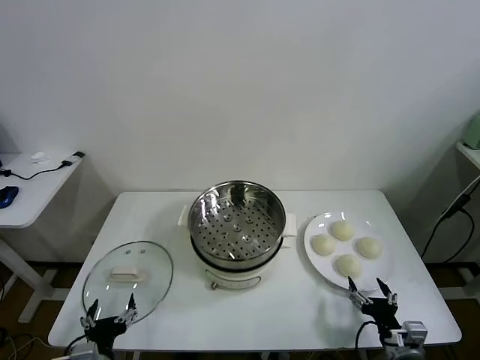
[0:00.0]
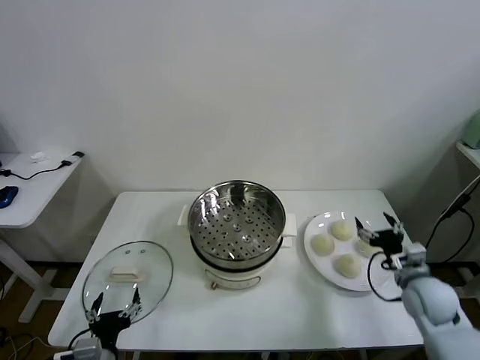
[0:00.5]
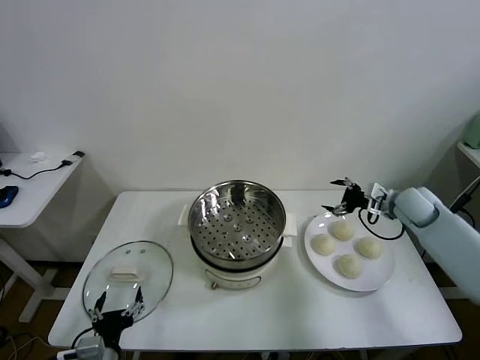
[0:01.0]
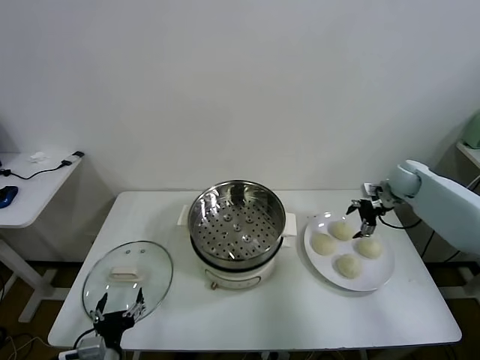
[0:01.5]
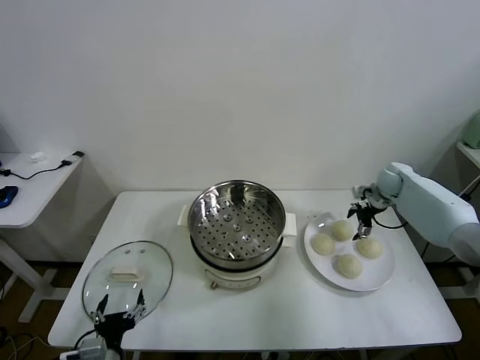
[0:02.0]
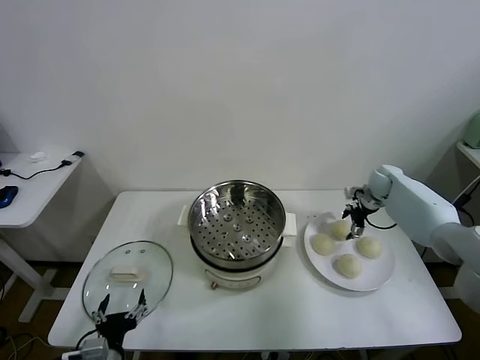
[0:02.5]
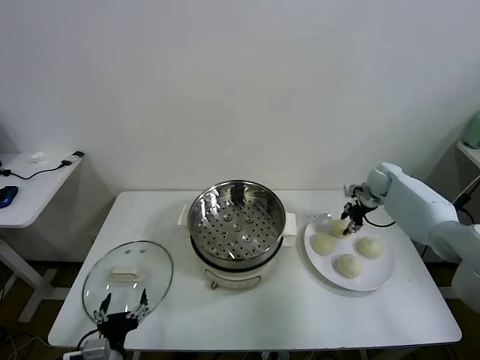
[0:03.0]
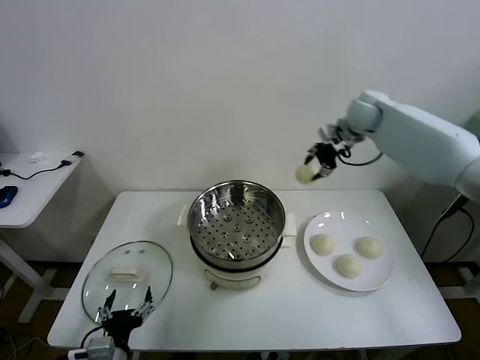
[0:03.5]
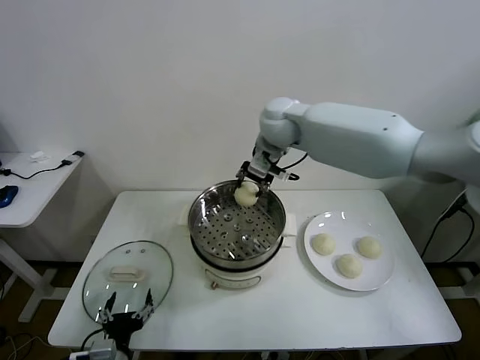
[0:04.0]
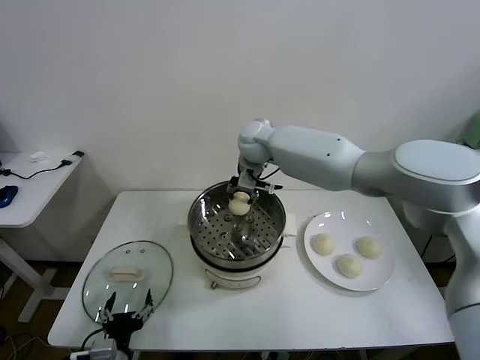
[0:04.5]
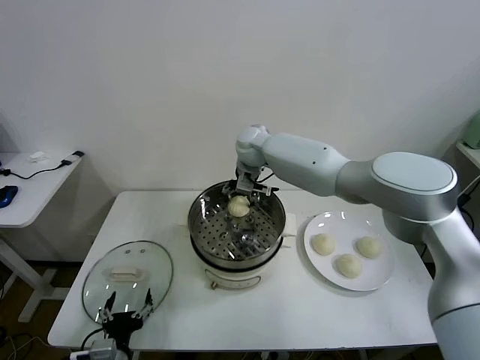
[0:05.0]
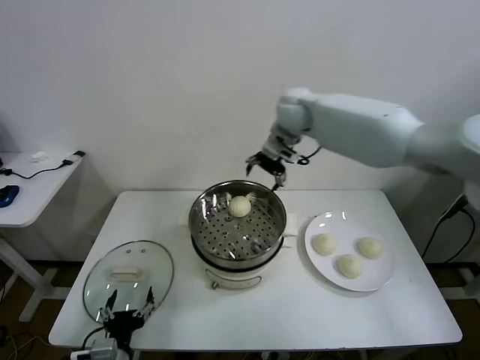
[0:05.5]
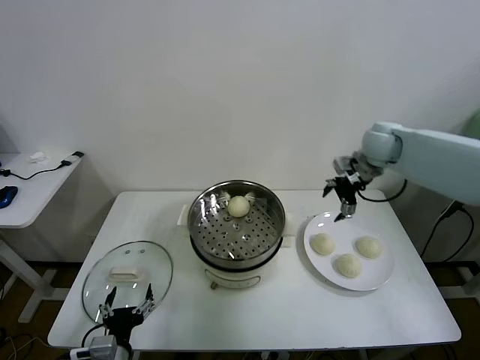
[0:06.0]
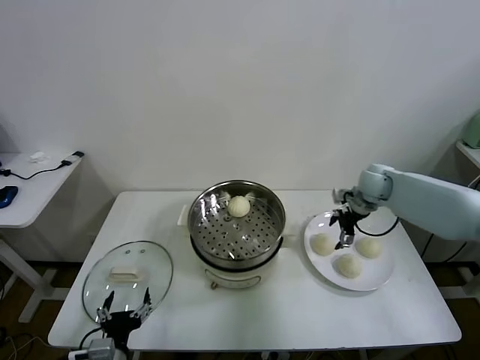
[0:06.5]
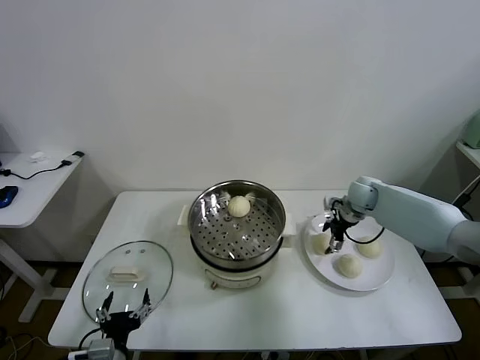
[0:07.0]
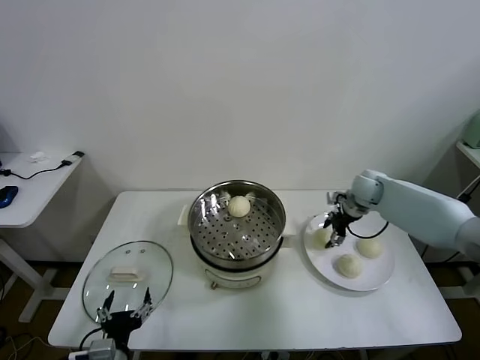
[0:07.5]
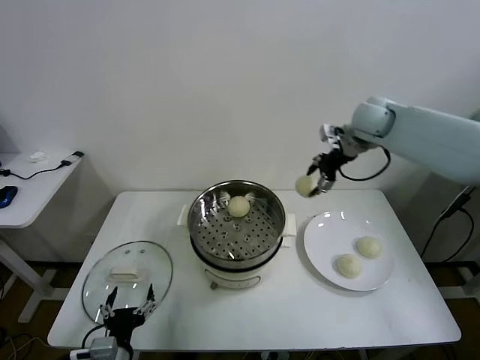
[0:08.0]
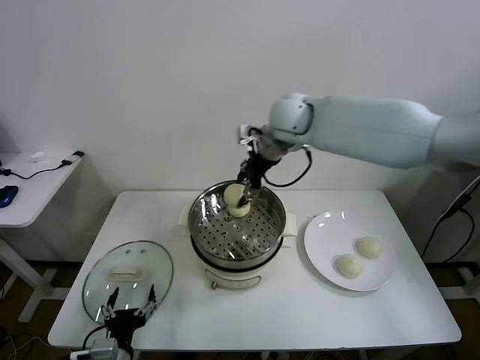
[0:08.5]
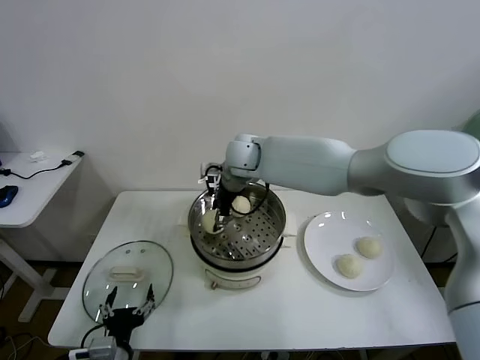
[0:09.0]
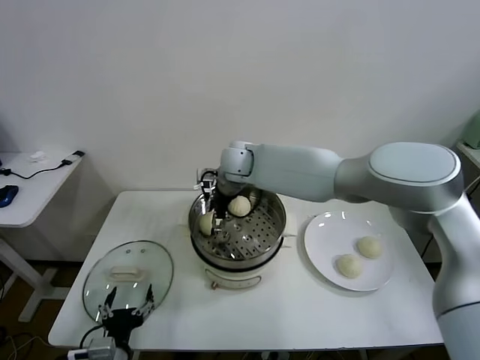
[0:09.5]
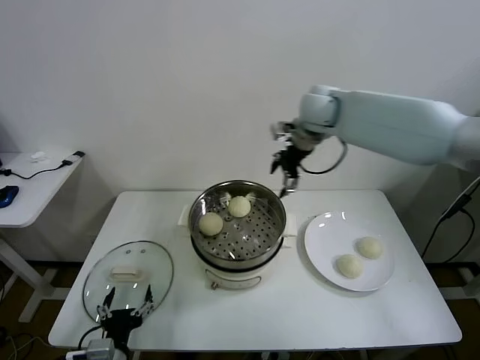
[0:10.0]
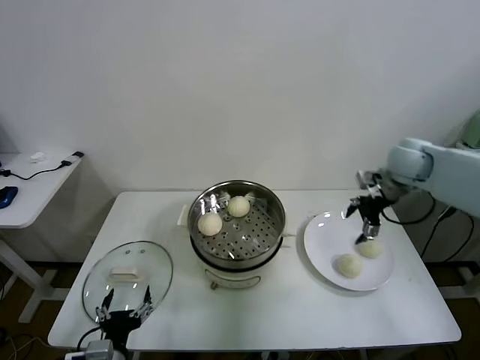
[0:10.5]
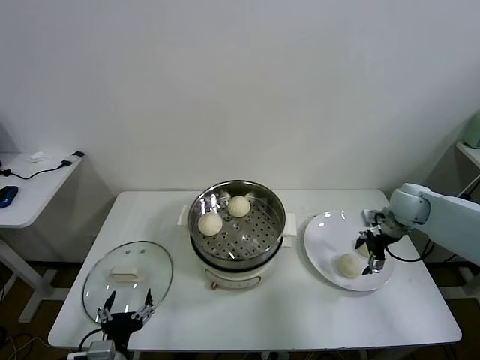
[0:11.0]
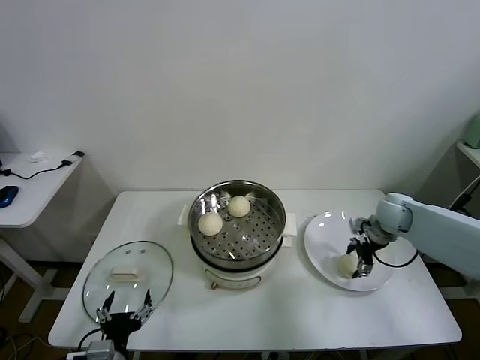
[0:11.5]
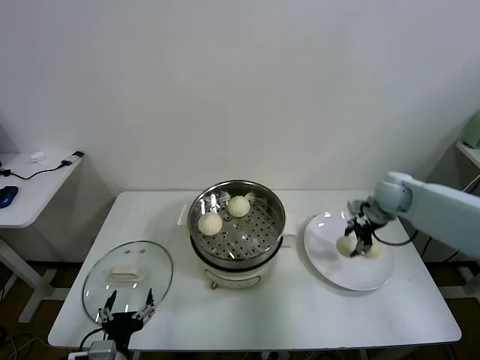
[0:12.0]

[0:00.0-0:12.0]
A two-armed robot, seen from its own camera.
Task of the whole recording: take steamed baozi put them in steamer.
Step, 0:00.0 to 0:02.5: Grasp the baozi in the plate with right gripper.
Step, 0:03.0 to 0:05.0: Place the baozi on the steamer with right gripper.
Step, 0:05.5 to 0:07.0: Grasp the baozi in the plate with right gripper.
Step, 0:07.5 to 0:09.5: Place the baozi on the steamer with right gripper.
Step, 0:10.0 to 0:11.5: Grasp the baozi in the plate with right gripper.
0:02.0 to 0:04.0: The right gripper goes roughly 40 cm to the left and upward, and closes up.
0:04.0 to 0:06.0: The right gripper is displaced to the right by about 25 cm, and opens.
0:06.0 to 0:08.0: The right gripper goes roughly 10 cm upward and to the left, and closes.
0:08.0 to 0:10.0: The right gripper moves roughly 25 cm to the left and comes back, and opens up.
0:10.0 to 0:12.0: The right gripper is displaced downward and to the right by approximately 25 cm, and closes up.

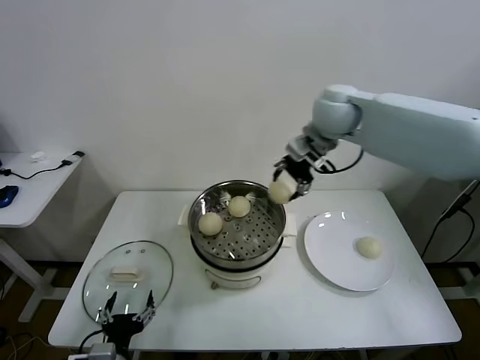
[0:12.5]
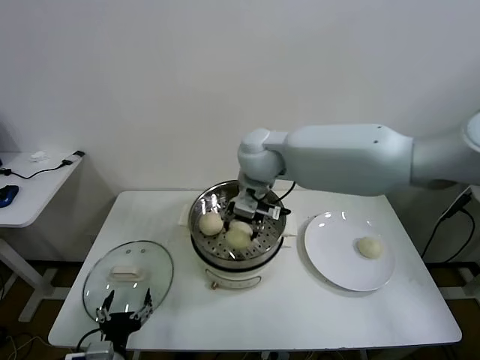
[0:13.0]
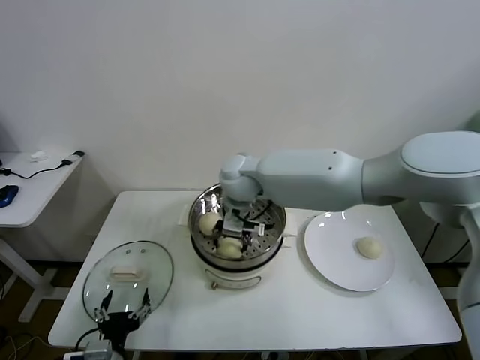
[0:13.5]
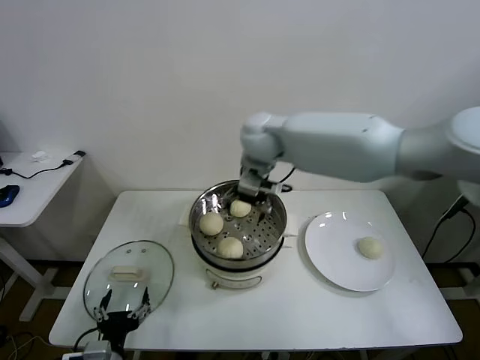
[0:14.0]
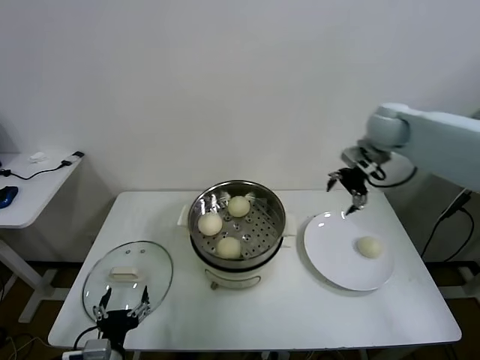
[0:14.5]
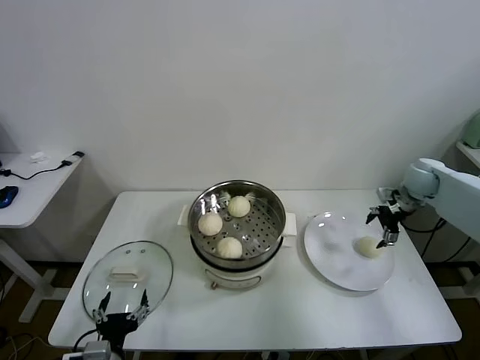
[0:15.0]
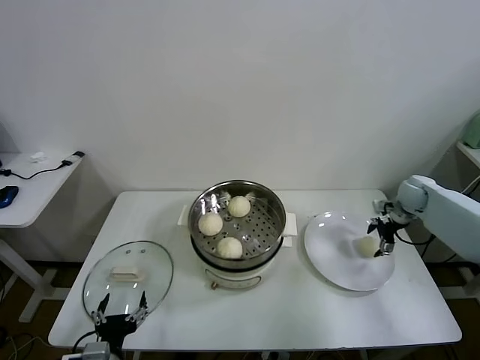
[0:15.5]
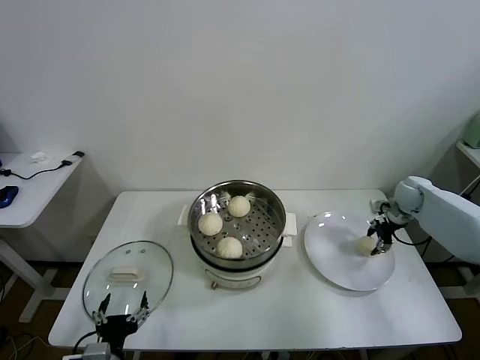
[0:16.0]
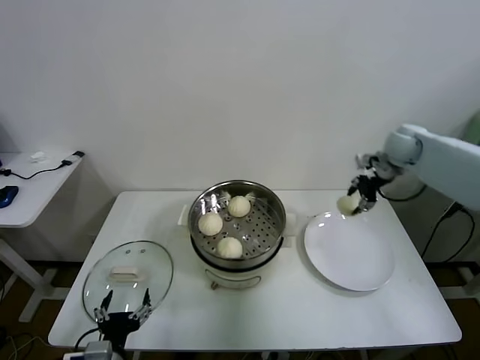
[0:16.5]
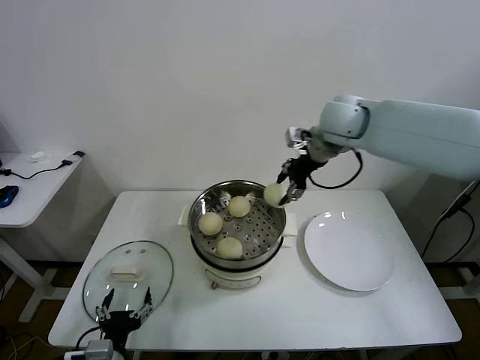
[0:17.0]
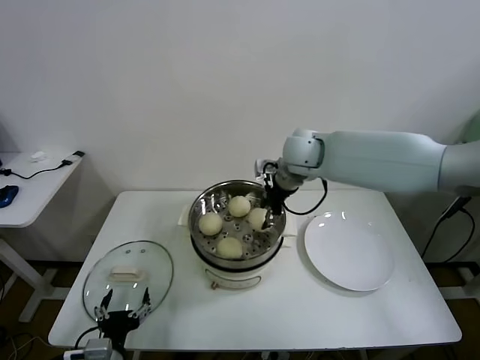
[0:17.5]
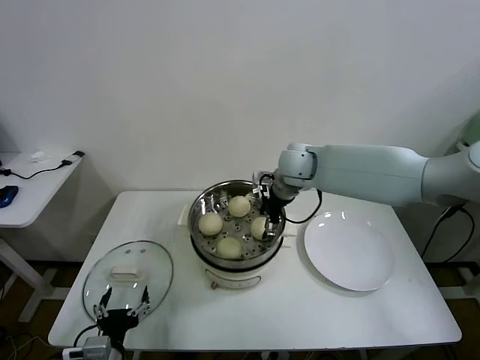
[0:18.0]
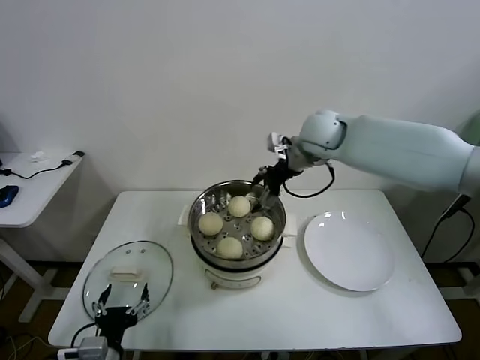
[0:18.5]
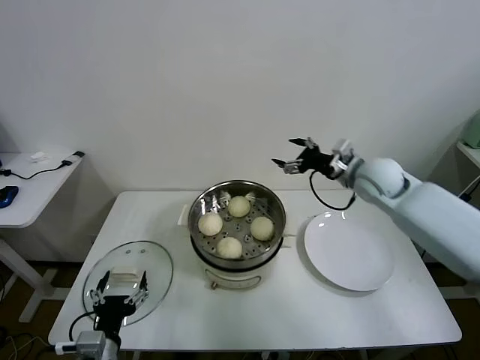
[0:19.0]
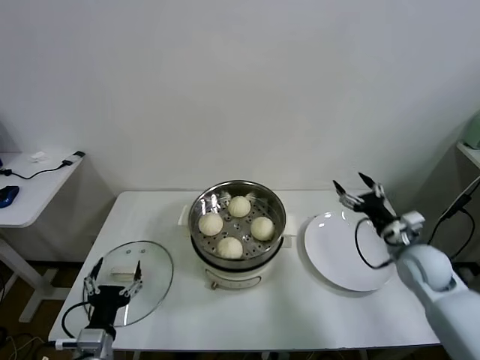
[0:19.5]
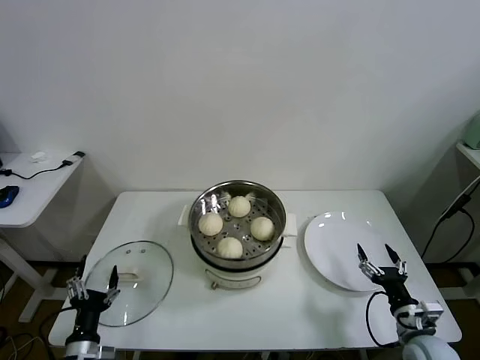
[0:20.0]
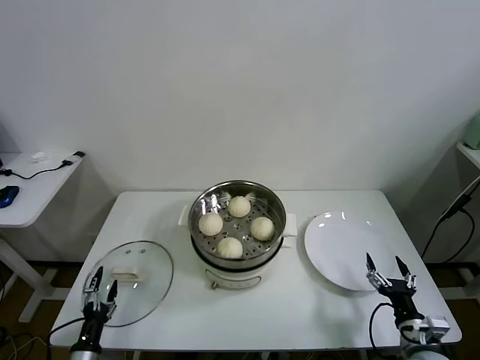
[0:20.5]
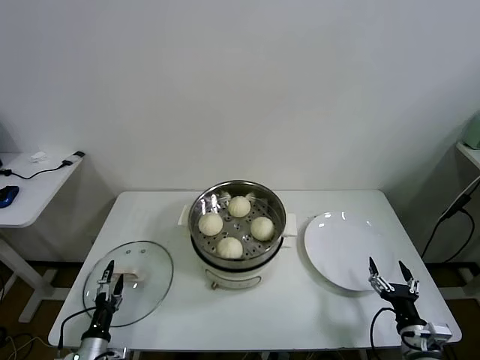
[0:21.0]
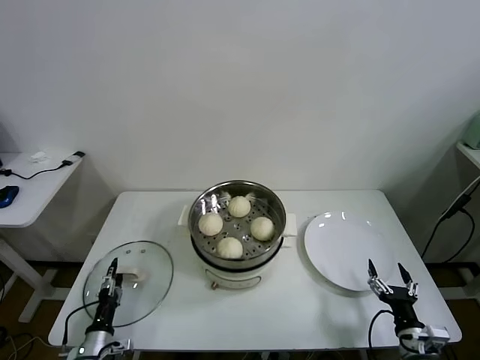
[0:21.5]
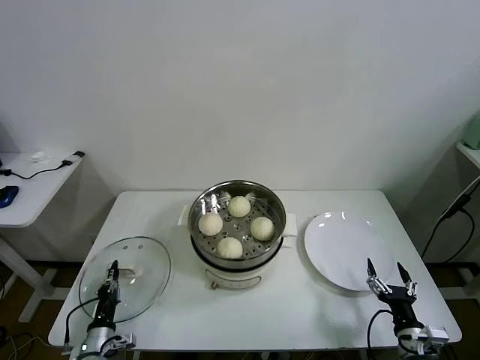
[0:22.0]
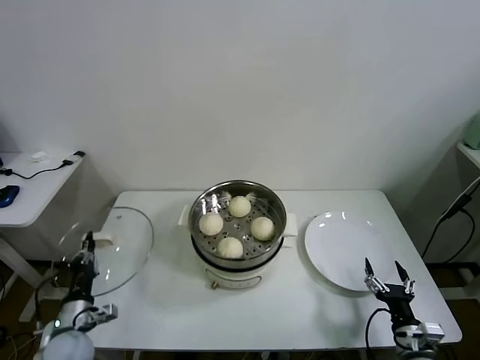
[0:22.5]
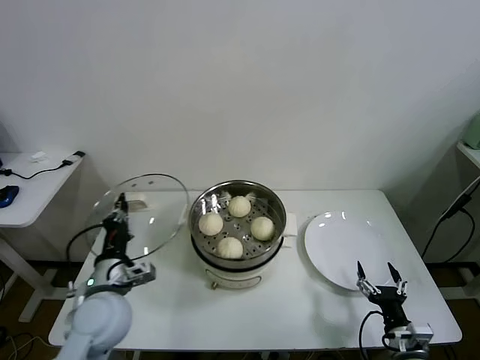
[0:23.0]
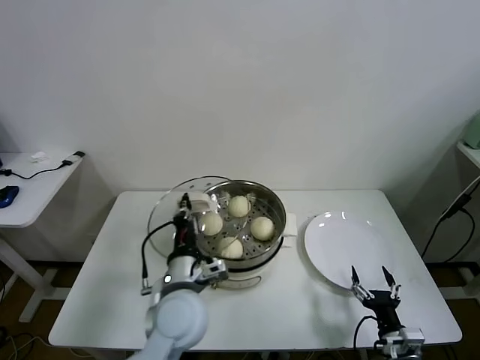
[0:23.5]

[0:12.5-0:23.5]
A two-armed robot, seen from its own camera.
Task of the whole recording: take steamed baozi put them in steamer.
Step, 0:14.0 to 0:15.5: Grasp the baozi in the plate with right gripper.
Step, 0:16.0 to 0:18.0: Place the baozi on the steamer with right gripper.
Step, 0:18.5 to 0:22.0: Grasp the pot lid with left gripper.
0:12.5 to 0:14.5: The right gripper goes roughly 15 cm to the right, and opens its fingers.
0:14.5 to 0:16.0: The right gripper shifts roughly 25 cm downward and to the right, and closes up.
0:16.0 to 0:18.0: The right gripper heads to the left, covering approximately 35 cm, and opens.
0:18.0 to 0:20.0: The left gripper moves to the left and downward, some 10 cm. The right gripper travels backward, downward and to the right by approximately 50 cm.
0:20.0 to 0:21.5: The right gripper moves roughly 5 cm. The left gripper moves downward, roughly 10 cm.
0:21.5 to 0:23.5: The left gripper is displaced upward and to the right by approximately 35 cm, and closes.

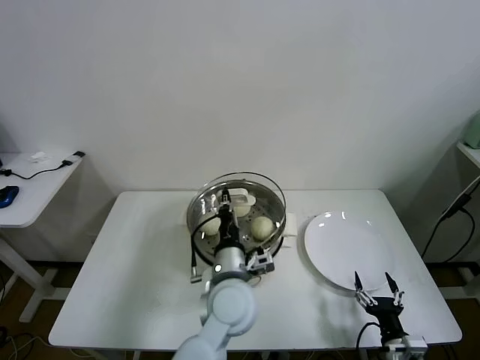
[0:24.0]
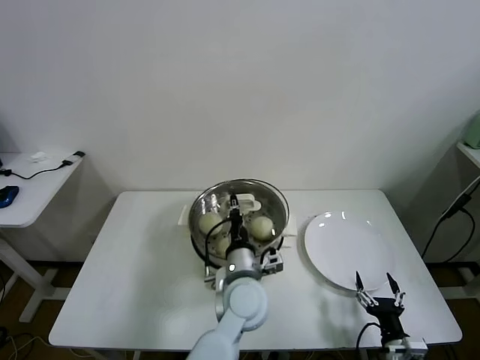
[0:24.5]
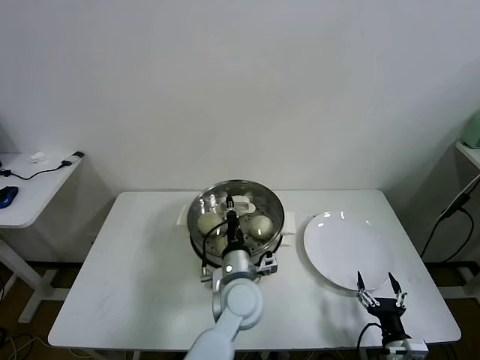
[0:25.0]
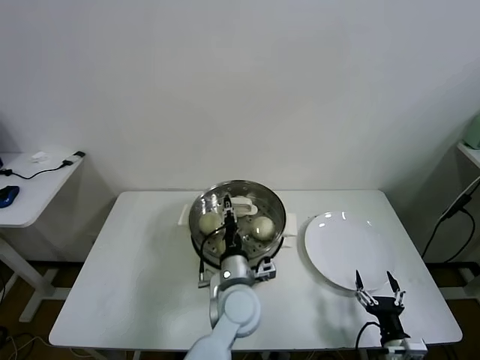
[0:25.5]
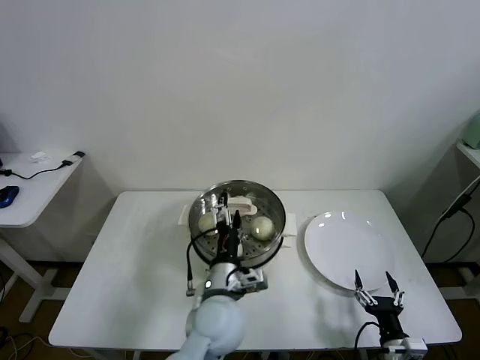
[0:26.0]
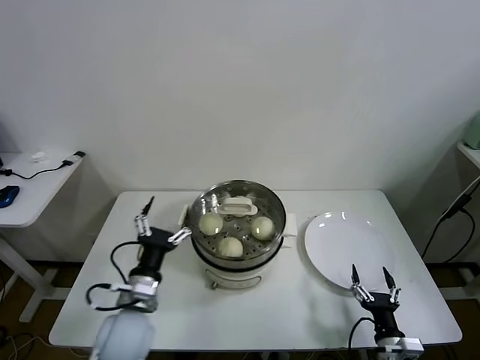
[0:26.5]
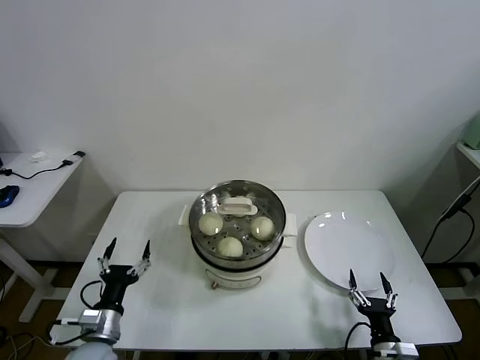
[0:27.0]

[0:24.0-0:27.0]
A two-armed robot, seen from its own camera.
Task of the whole recording: take steamed baozi put them in steamer.
0:24.0 to 0:25.5: The left gripper heads downward, covering about 5 cm.
0:25.5 to 0:27.0: The left gripper is displaced to the left by roughly 30 cm, and opens.
